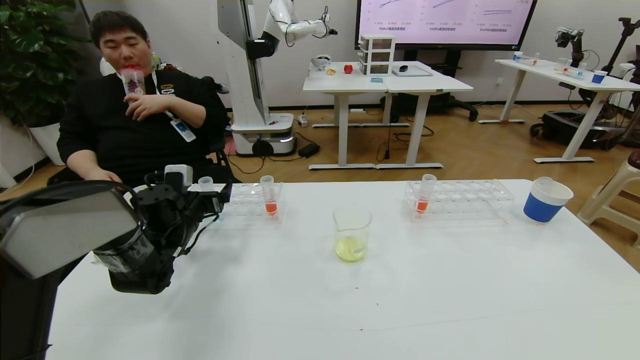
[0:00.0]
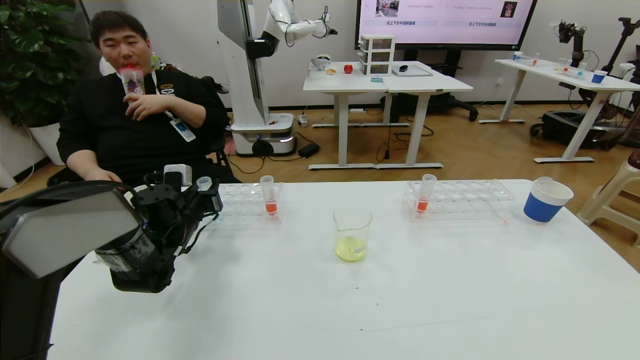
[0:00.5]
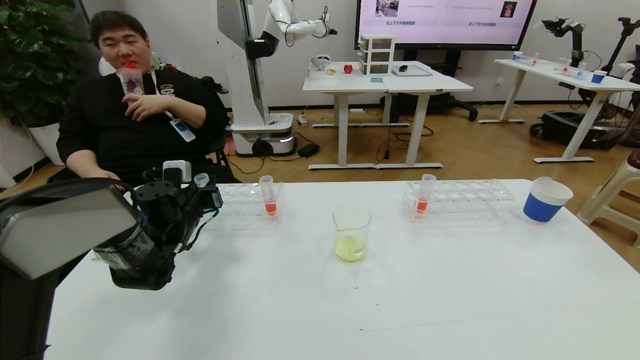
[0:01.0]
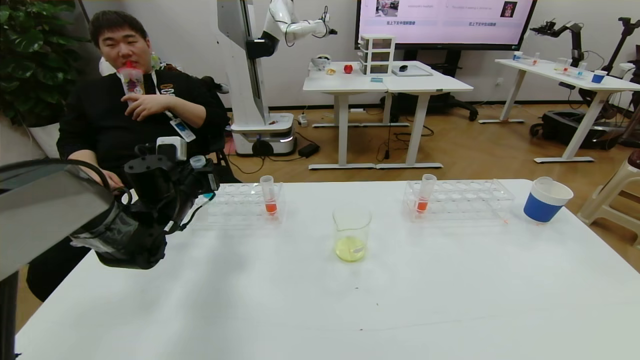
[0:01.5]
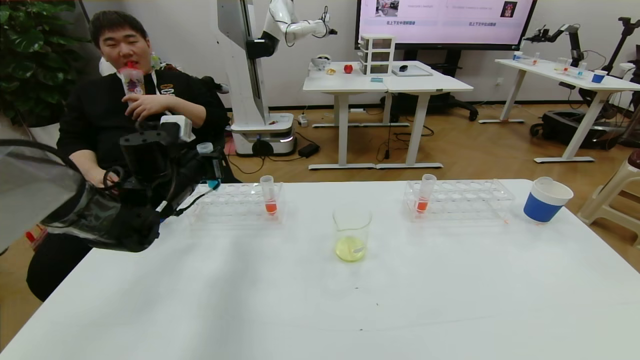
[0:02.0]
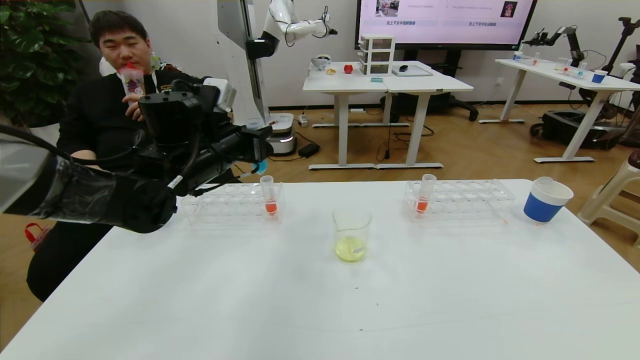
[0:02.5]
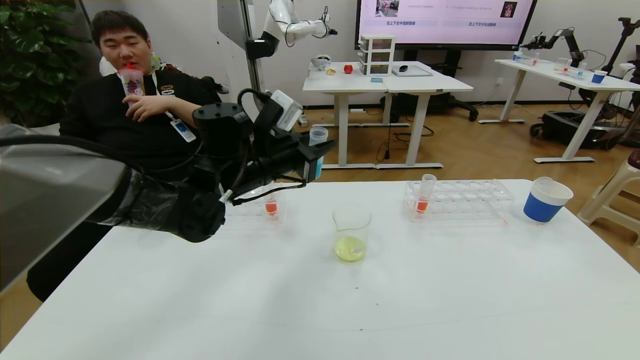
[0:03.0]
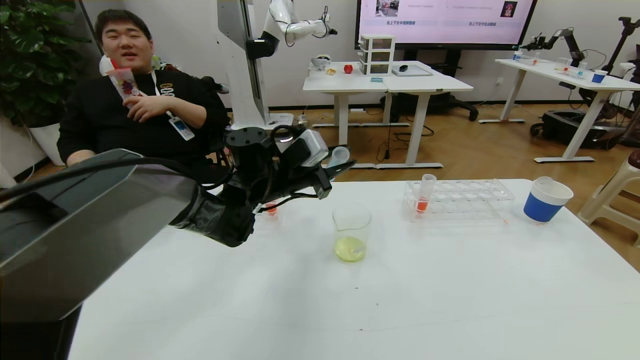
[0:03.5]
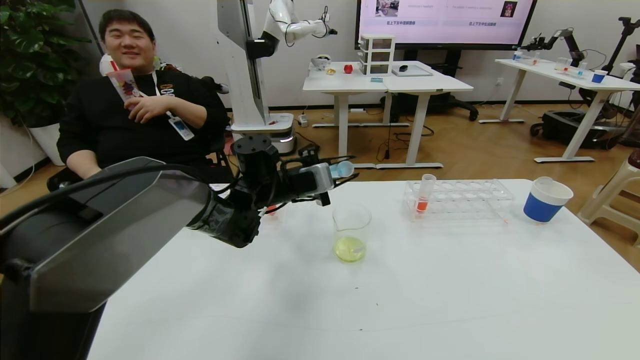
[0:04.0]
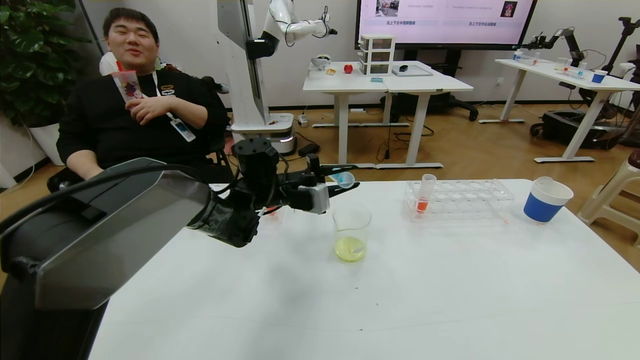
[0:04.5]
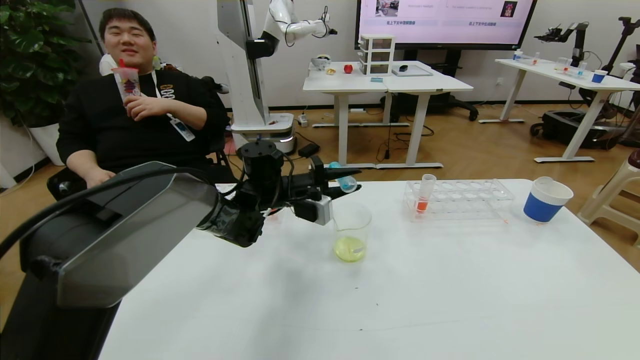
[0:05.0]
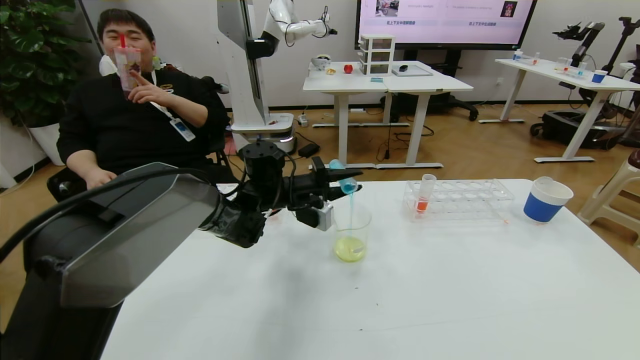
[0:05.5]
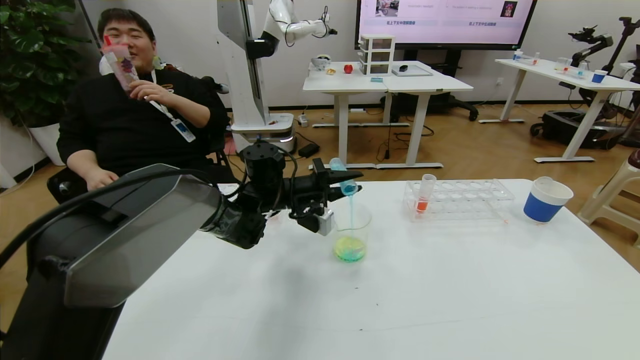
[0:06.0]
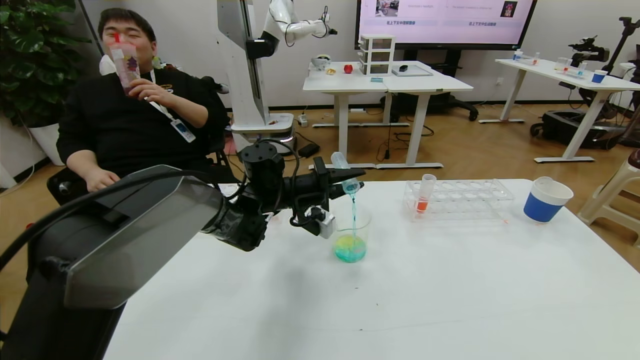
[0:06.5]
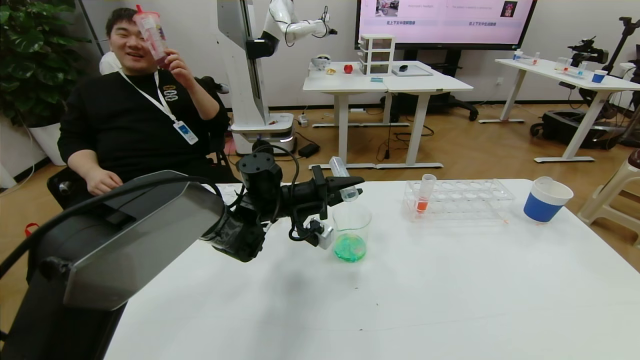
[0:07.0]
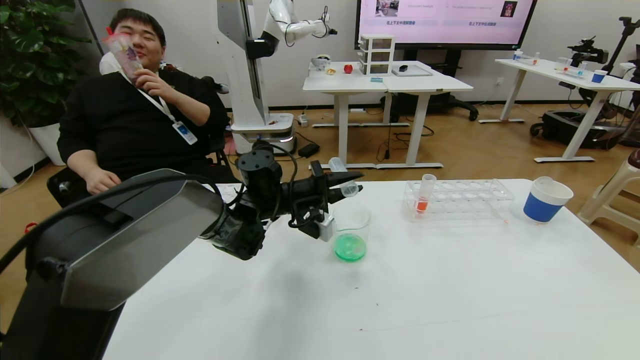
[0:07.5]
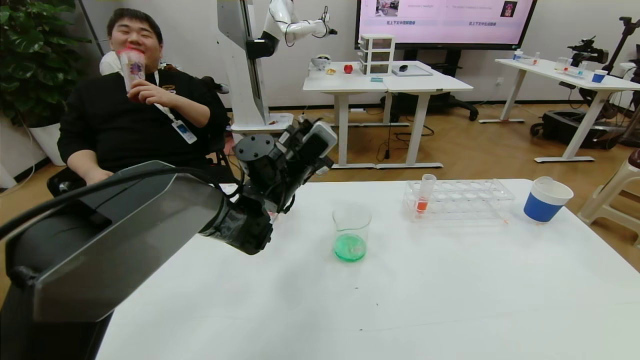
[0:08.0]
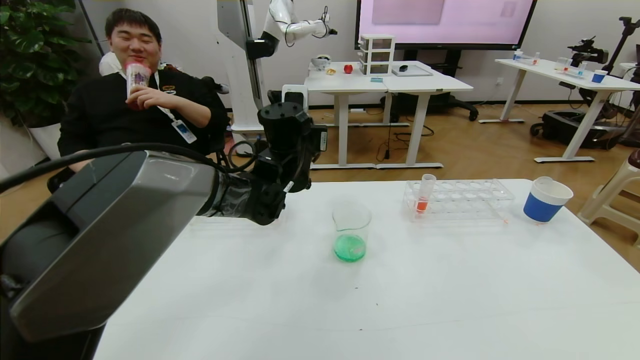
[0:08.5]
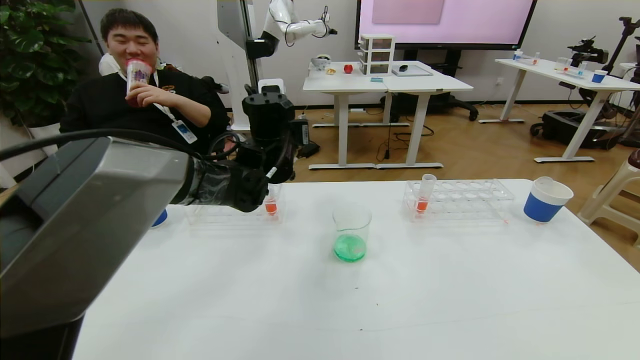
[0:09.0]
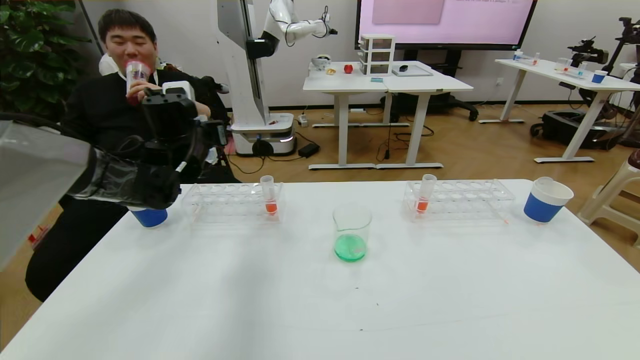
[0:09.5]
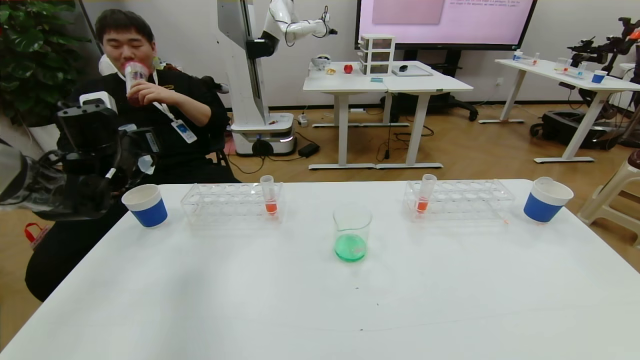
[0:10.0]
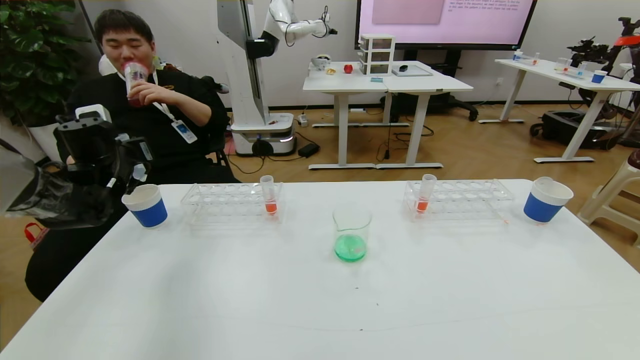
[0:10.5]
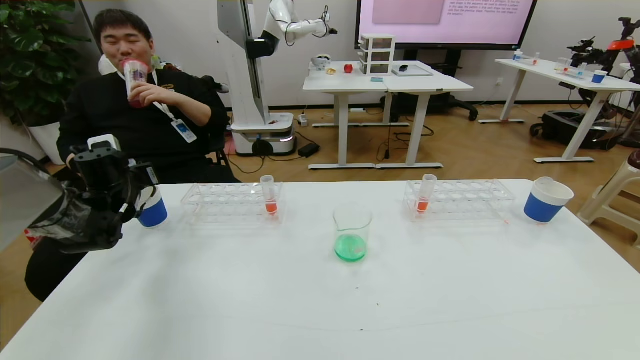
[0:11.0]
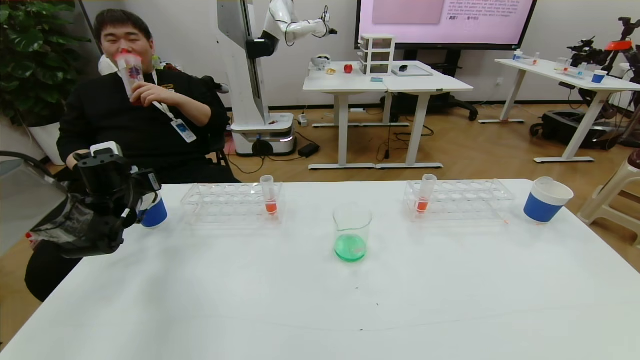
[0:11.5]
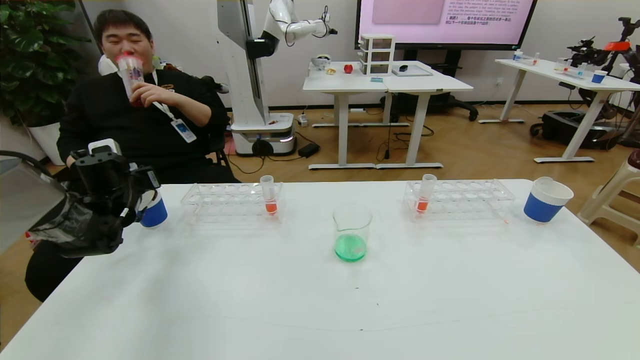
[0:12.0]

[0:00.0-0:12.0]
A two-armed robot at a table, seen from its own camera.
Task of the whole recording: pick up the test tube with yellow pigment and the test tube with blue pigment by grippers and pour them into the beaker.
0:00.0 to 0:02.0: The left gripper goes about 10 cm upward, and closes up.
0:02.0 to 0:04.0: The left gripper goes roughly 15 cm to the right.
0:08.0 to 0:10.0: The left gripper is displaced to the left by about 30 cm.
0:10.0 to 0:12.0: The left gripper heads downward, covering approximately 10 cm.

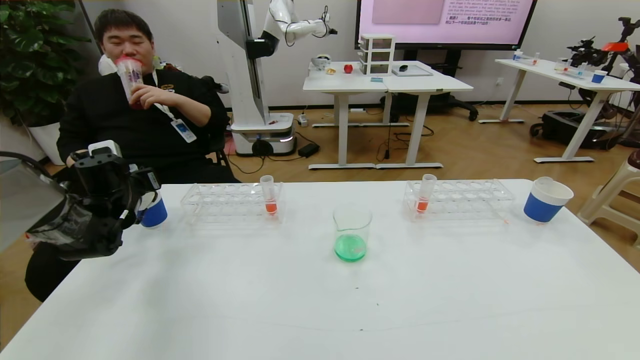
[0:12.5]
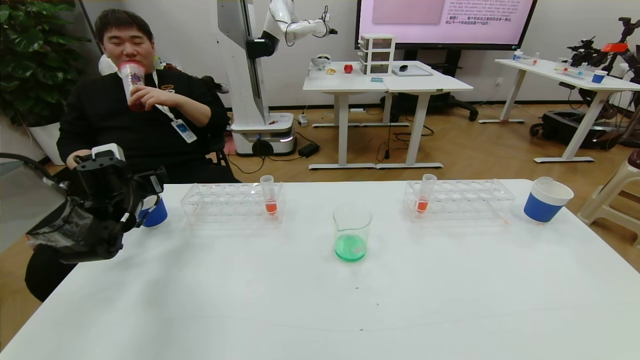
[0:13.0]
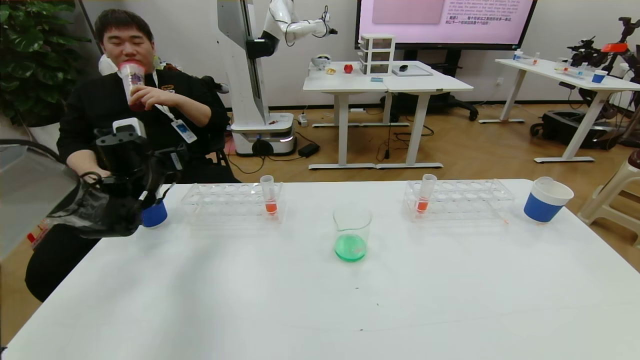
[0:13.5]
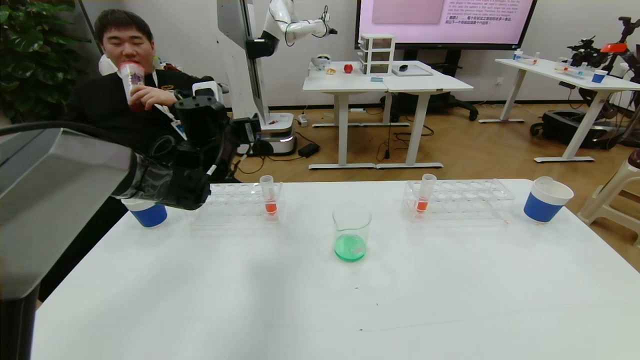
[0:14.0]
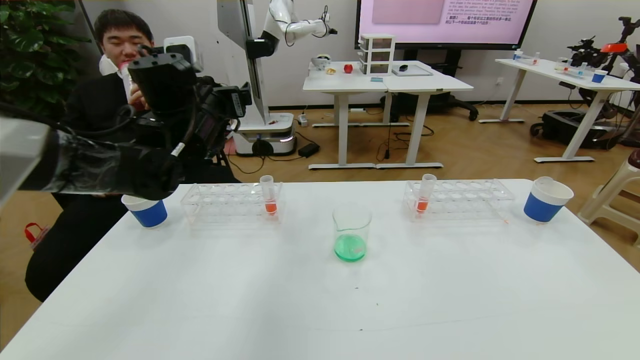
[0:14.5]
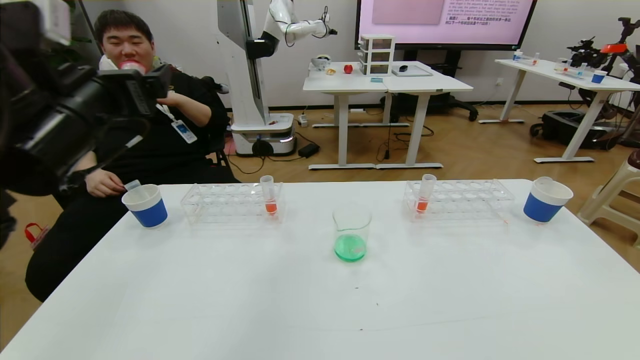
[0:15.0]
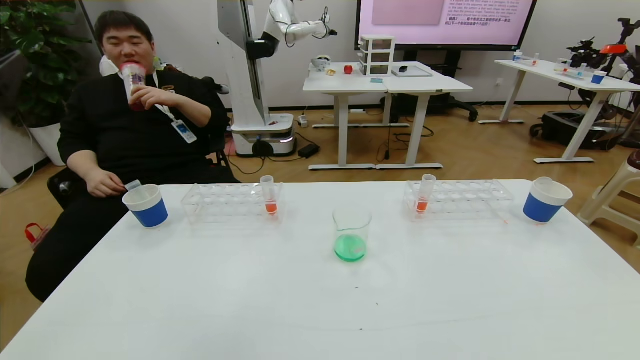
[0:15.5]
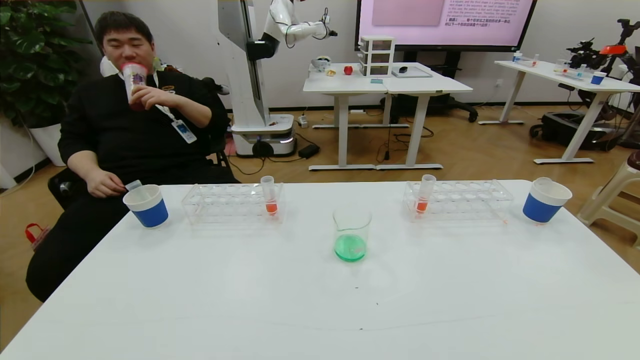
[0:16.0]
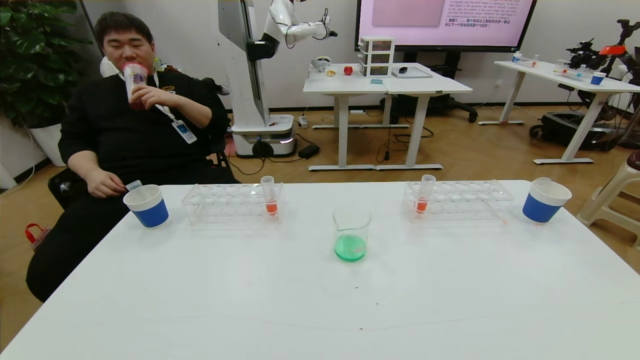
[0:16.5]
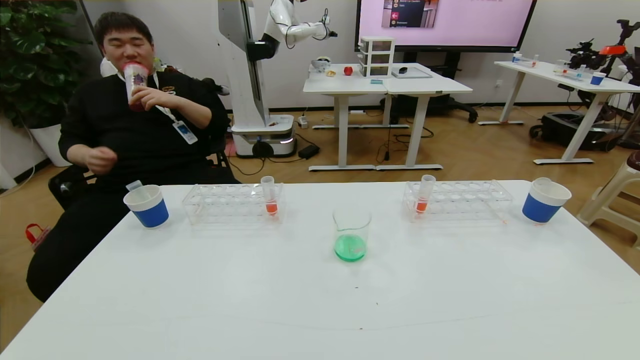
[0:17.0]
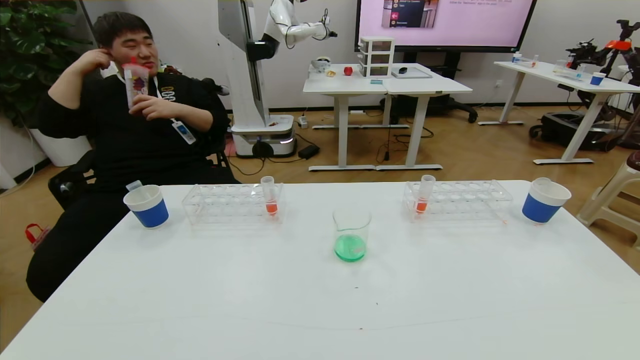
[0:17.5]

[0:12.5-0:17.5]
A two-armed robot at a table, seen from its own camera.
Task of the whole recording: pick up the test tube with yellow pigment and the test tube with blue pigment by grippers and pour them into the beaker.
0:12.5 to 0:15.0: The left gripper is displaced upward, backward and to the right by roughly 30 cm, and opens up.
0:15.0 to 0:17.5: The left gripper travels backward and downward by approximately 35 cm.
